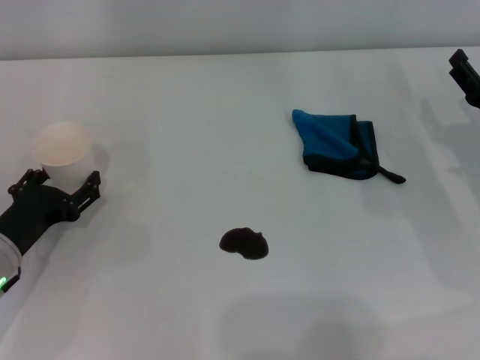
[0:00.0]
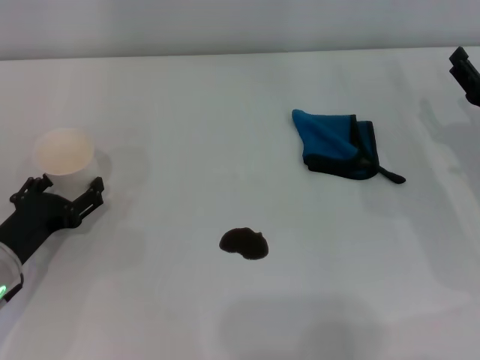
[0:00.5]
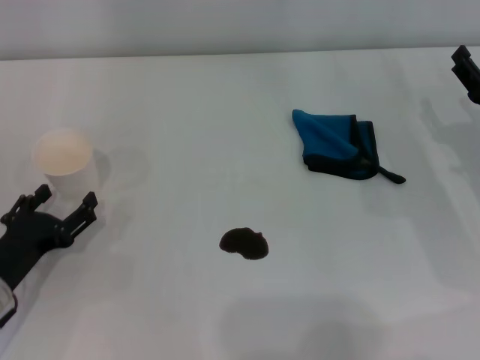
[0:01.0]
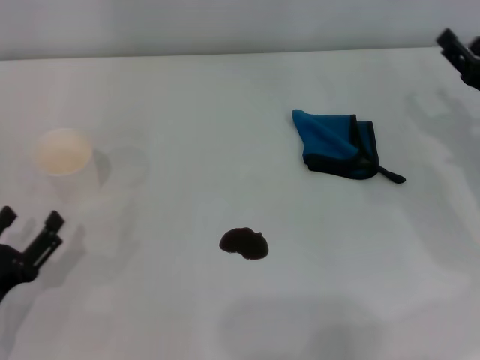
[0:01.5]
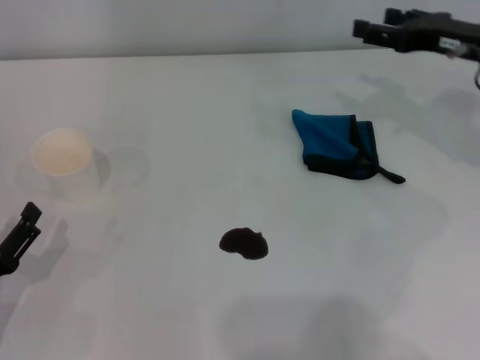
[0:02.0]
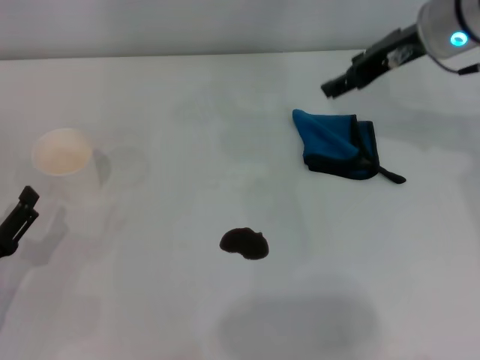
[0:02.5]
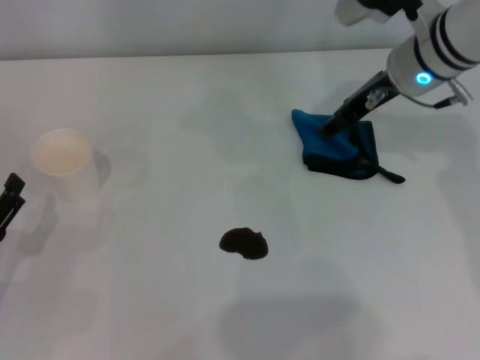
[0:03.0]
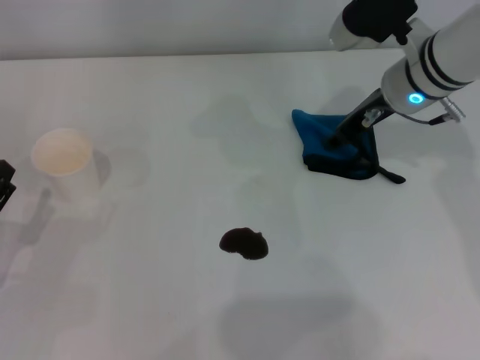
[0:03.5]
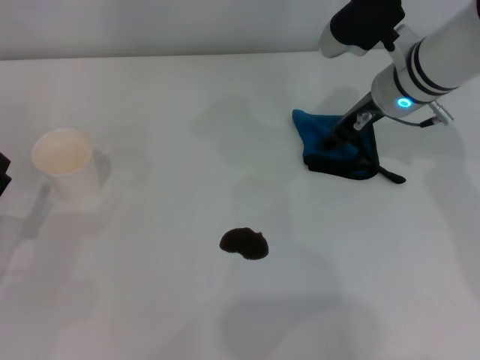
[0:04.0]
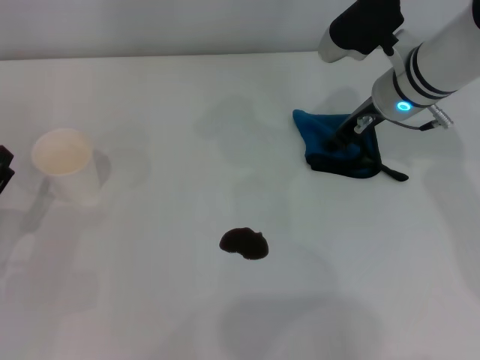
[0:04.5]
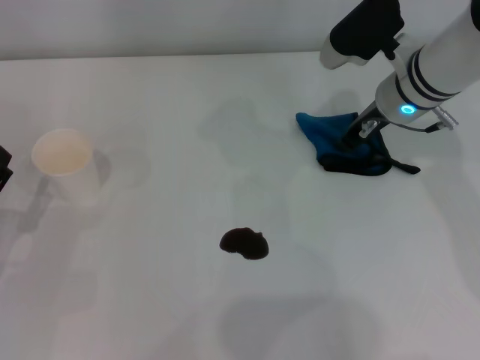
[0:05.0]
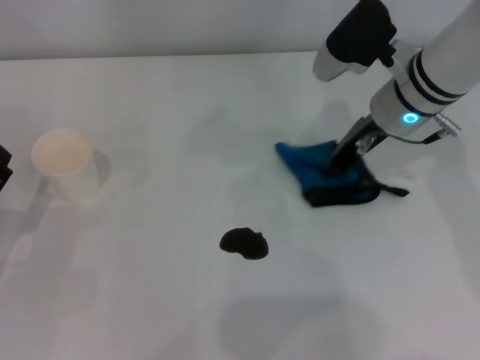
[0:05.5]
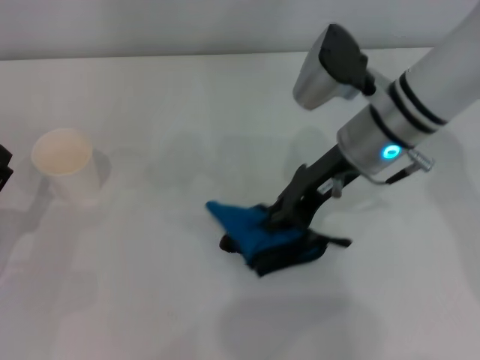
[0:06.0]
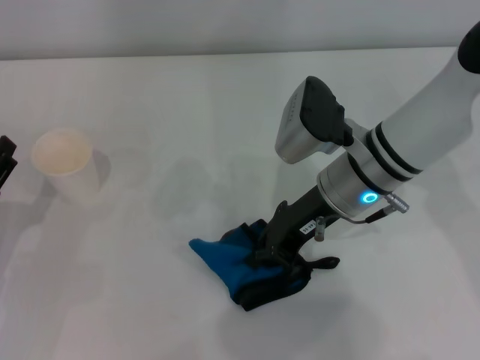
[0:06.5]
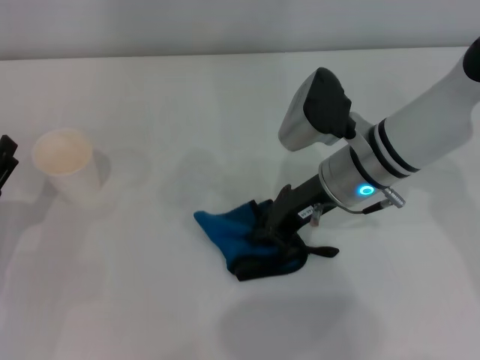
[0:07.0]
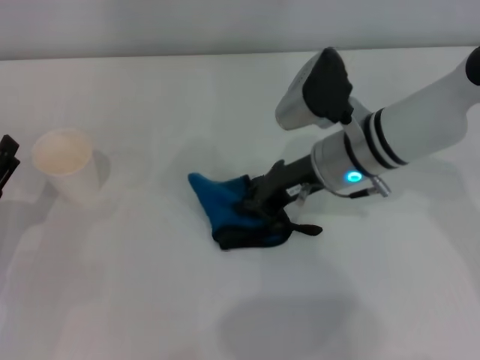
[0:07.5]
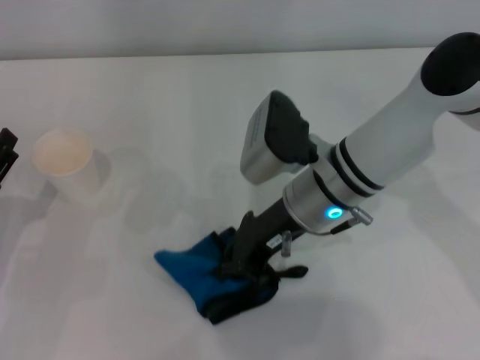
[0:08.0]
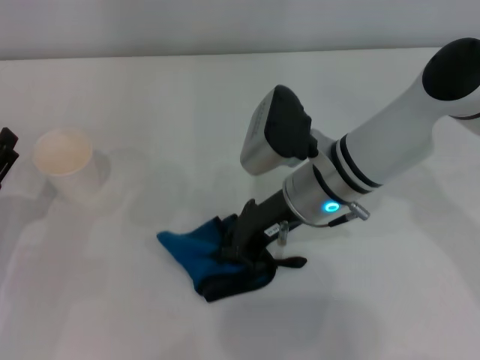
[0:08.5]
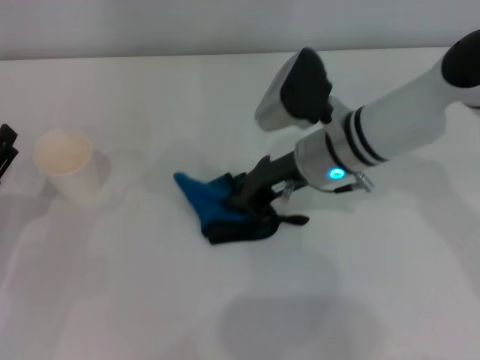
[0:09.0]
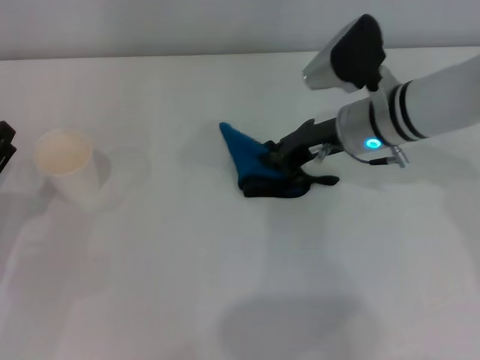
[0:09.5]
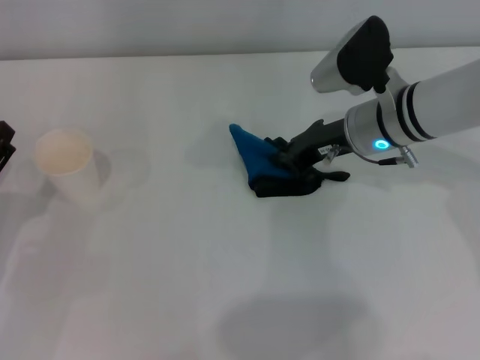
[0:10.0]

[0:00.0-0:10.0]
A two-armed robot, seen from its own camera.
Step, 0:01.0 to 0:04.5: Grasp the rag with the right gripper.
Step, 0:05.0 to 0:09.0: Wipe the stains off the table with the right gripper.
0:00.0 to 0:02.0: The right gripper moves upward and forward, about 15 cm. The left gripper shifts about 10 cm backward.
0:02.0 to 0:04.0: The right gripper travels to the left by approximately 10 cm.
0:04.0 to 0:06.0: The right gripper goes approximately 5 cm backward, and closes its fingers.
0:06.0 to 0:08.0: The right gripper is displaced to the left by some 5 cm.
0:08.0 to 0:10.0: The right gripper heads to the right and forward, covering some 10 cm.

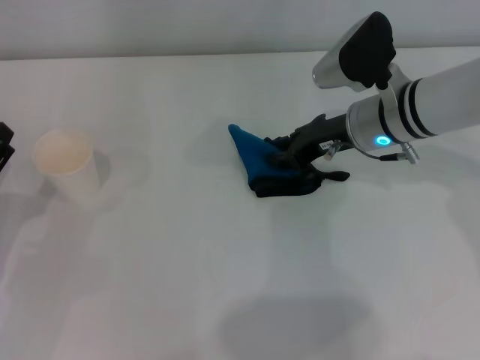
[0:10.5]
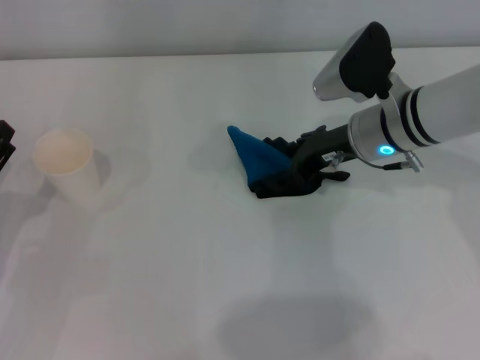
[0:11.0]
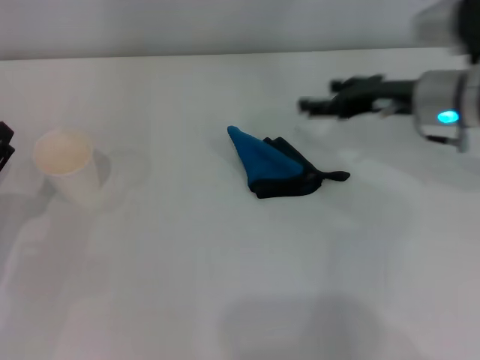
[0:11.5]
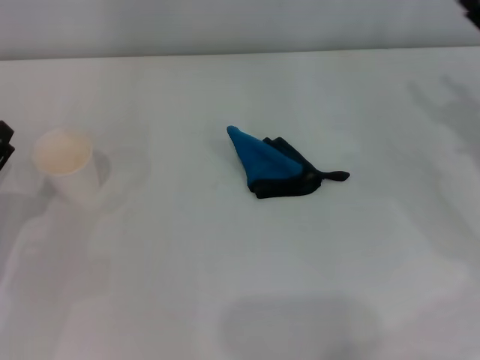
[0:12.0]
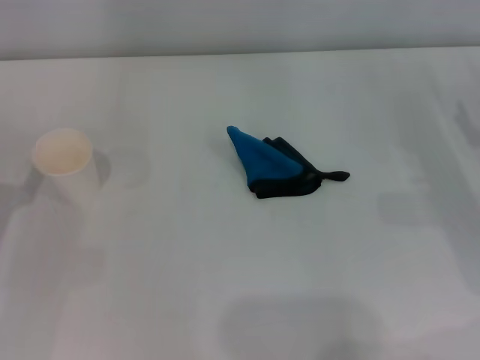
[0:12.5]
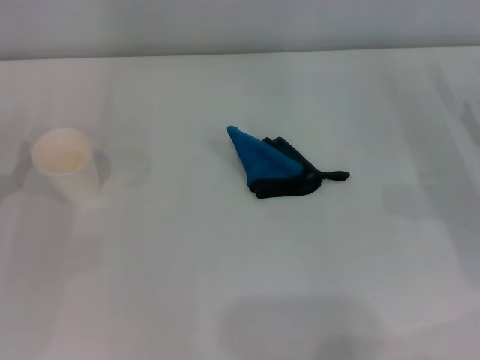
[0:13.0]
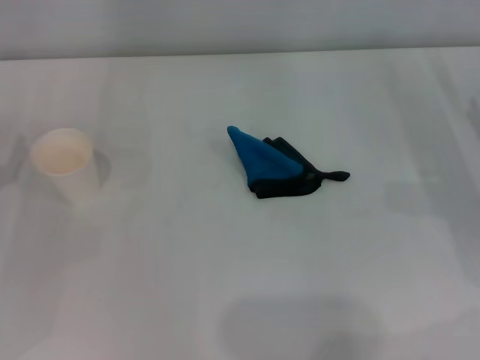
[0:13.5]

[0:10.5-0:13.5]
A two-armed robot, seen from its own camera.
0:10.5 to 0:12.0: The right gripper travels to the right and backward by approximately 20 cm, and opens its fingers.
